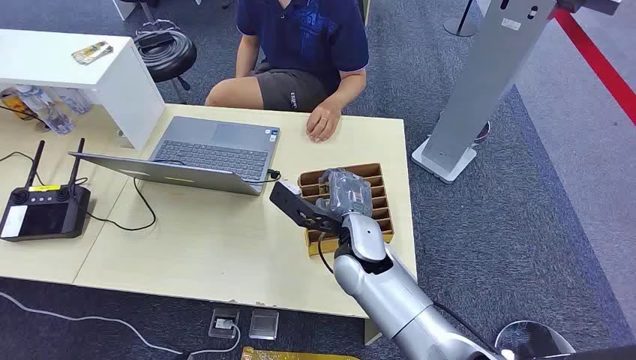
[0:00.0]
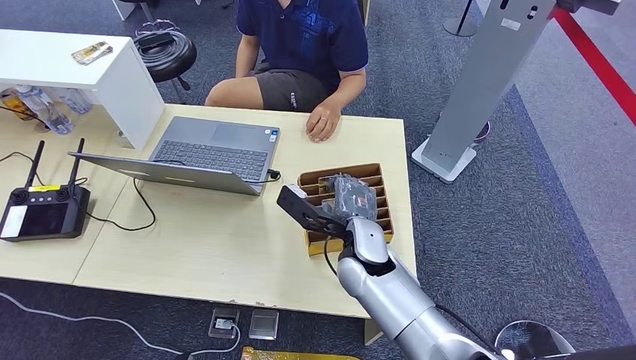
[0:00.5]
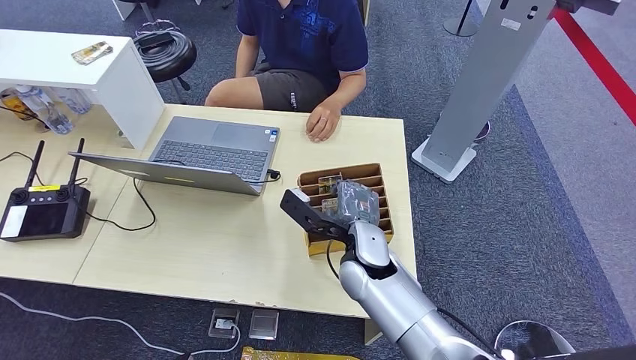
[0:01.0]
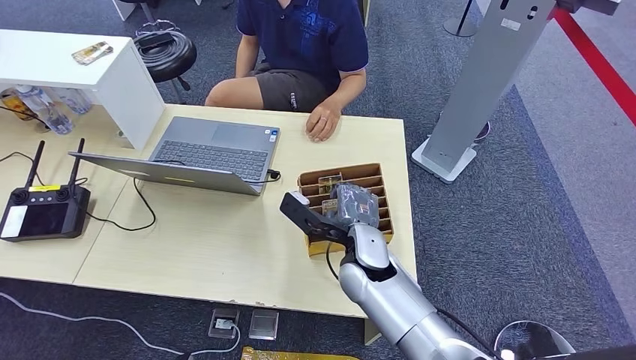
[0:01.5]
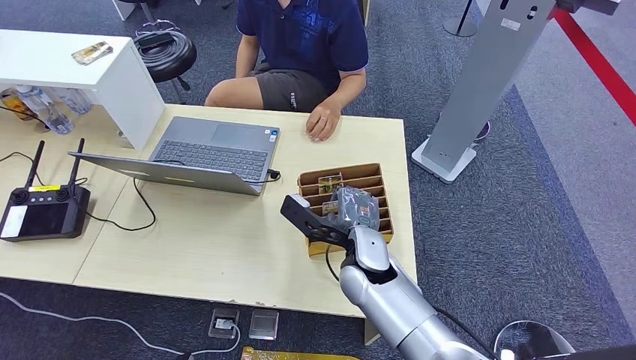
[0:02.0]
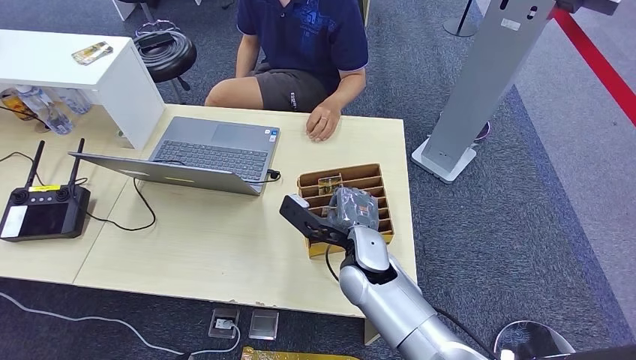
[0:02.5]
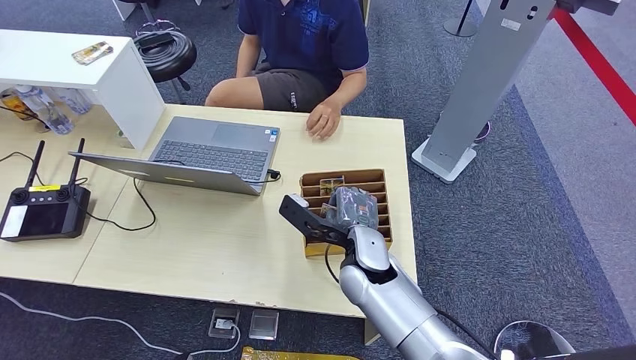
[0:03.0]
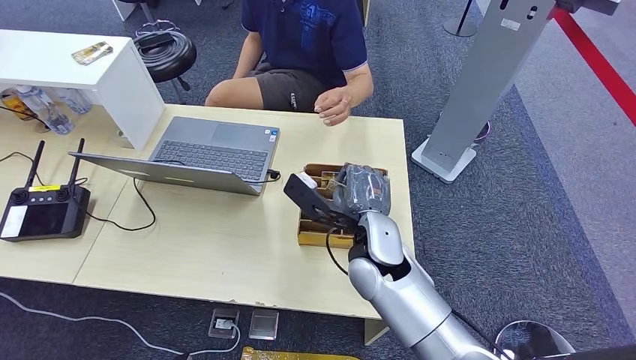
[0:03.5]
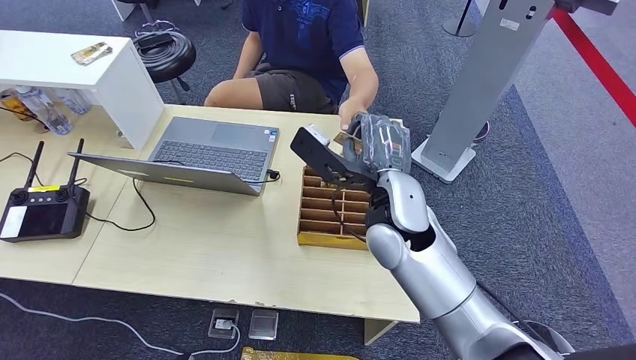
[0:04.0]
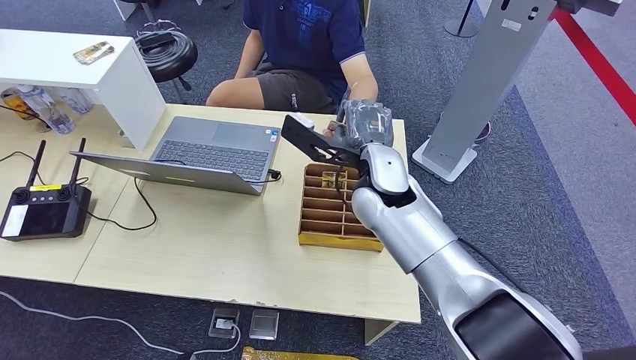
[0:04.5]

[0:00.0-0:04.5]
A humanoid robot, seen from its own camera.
Step, 0:00.0 to 0:03.0: Pick up the room card from the card holder.
Step, 0:04.0 to 0:04.5: Hand the room card to the target.
0:02.0 to 0:04.5: The right hand heads upward and forward, covering about 15 cm.

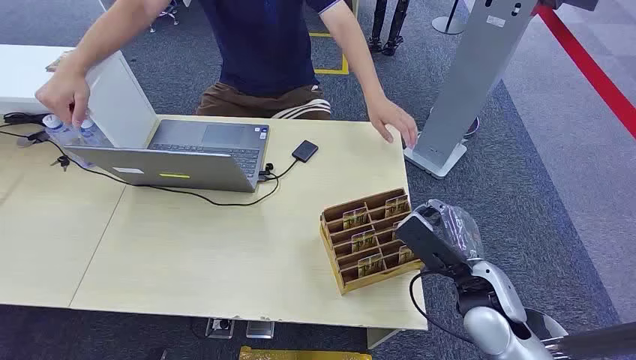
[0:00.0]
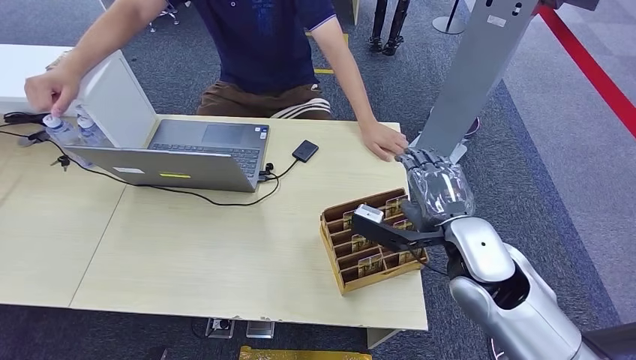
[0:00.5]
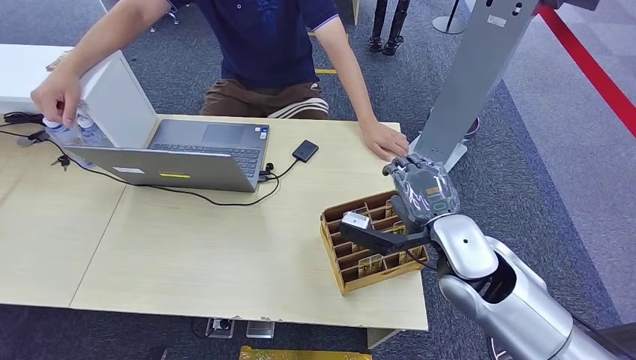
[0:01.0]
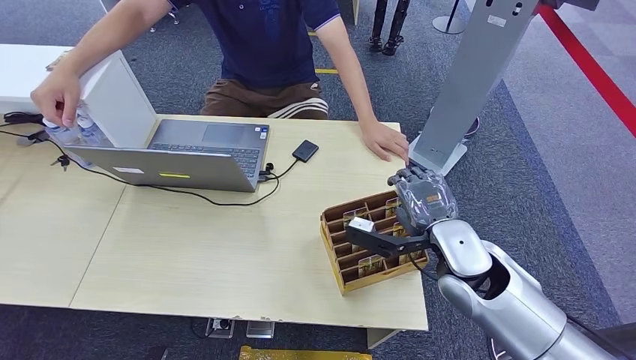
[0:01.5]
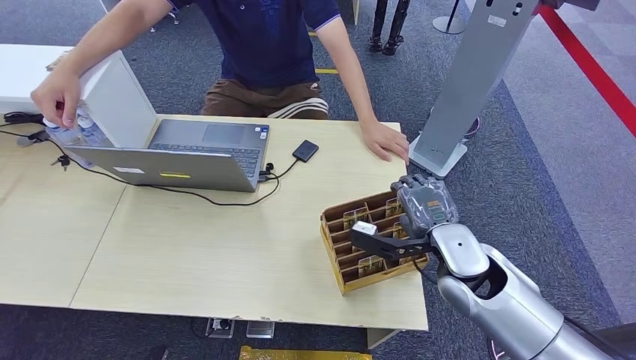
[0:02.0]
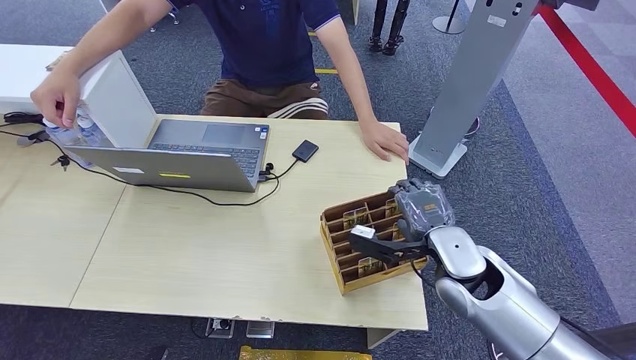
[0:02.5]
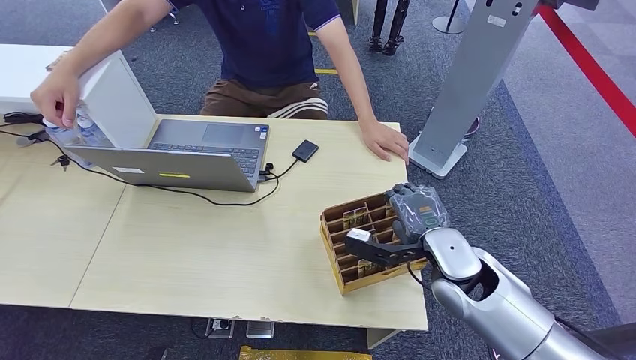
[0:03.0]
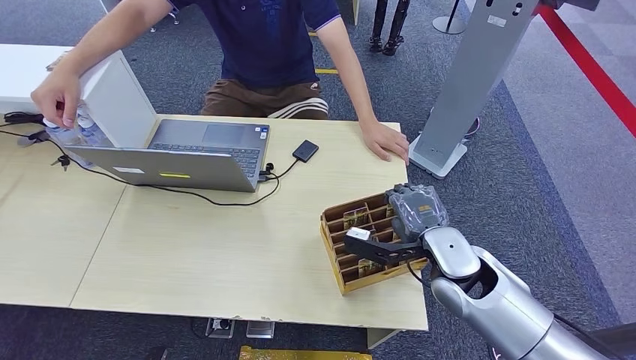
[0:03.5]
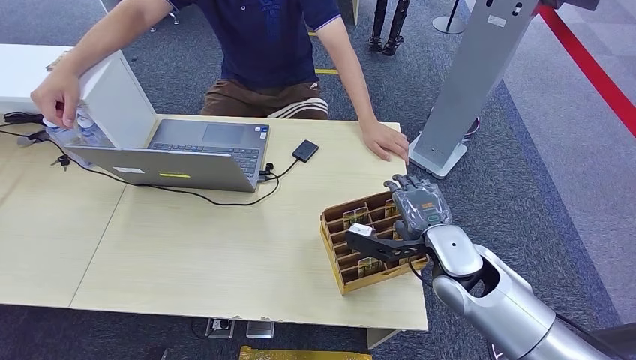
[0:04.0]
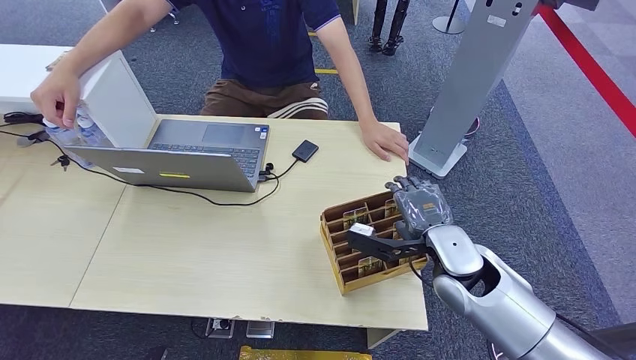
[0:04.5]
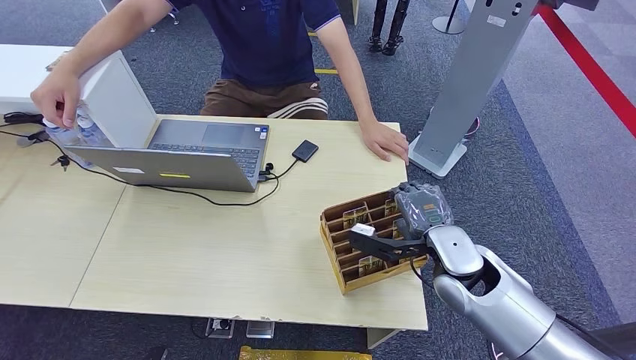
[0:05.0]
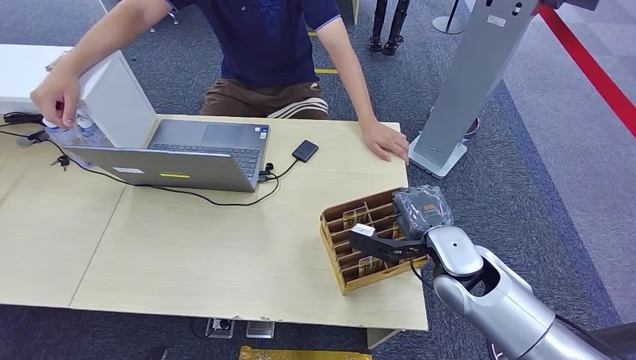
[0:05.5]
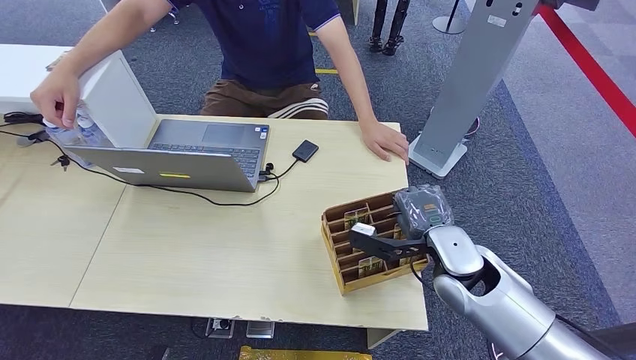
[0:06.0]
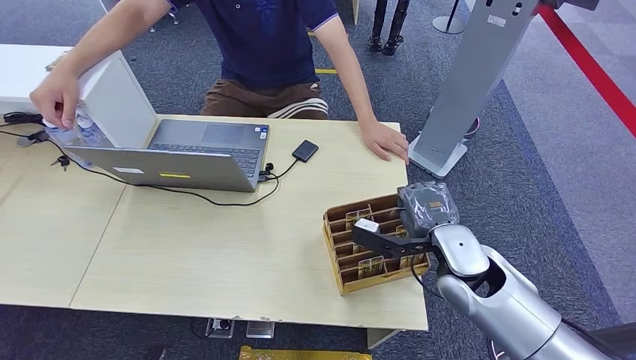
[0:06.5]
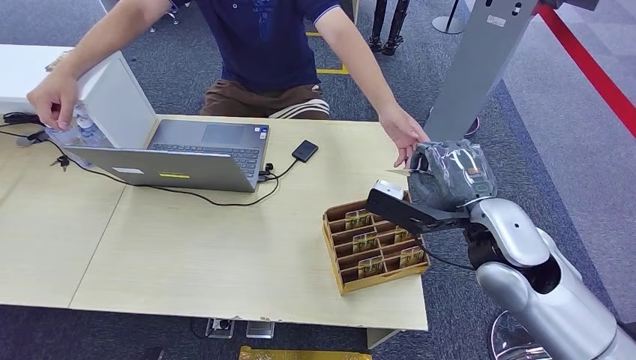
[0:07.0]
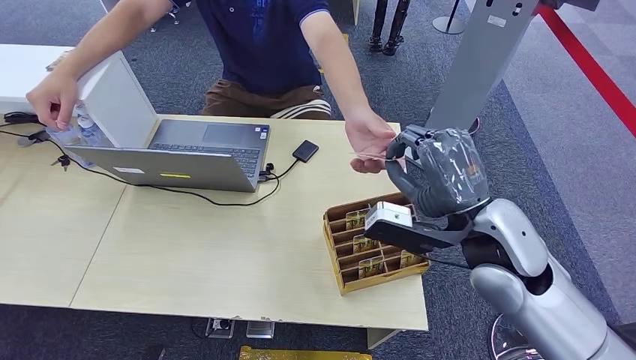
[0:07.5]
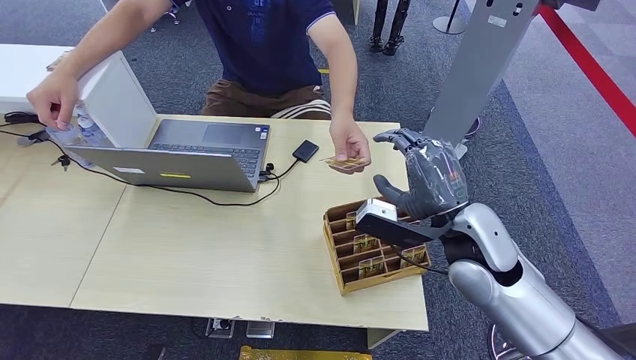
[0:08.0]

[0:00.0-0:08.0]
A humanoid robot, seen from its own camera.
Step, 0:00.0 to 0:06.0: Pick up the room card from the card holder.
Step, 0:06.5 to 0:08.0: Hand the room card to the target.
0:02.0 to 0:04.0: The two hands keep their place.
0:04.0 to 0:06.0: The hands make only small movements.
0:06.0 to 0:08.0: The right hand heads upward, covering approximately 5 cm.
